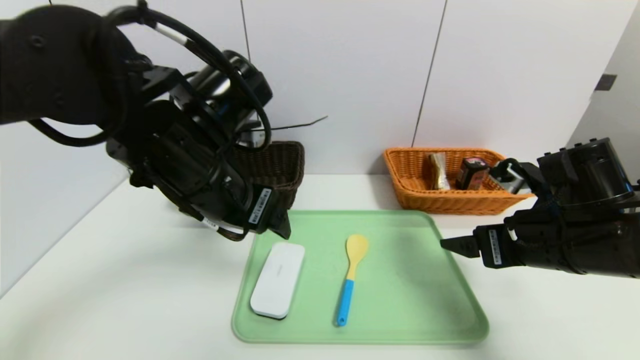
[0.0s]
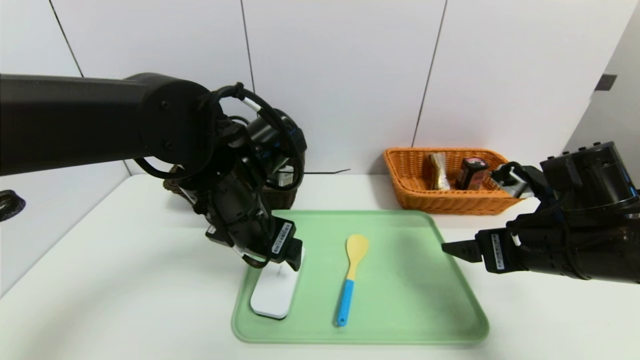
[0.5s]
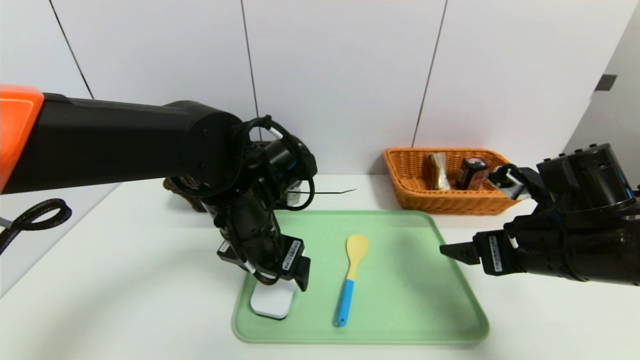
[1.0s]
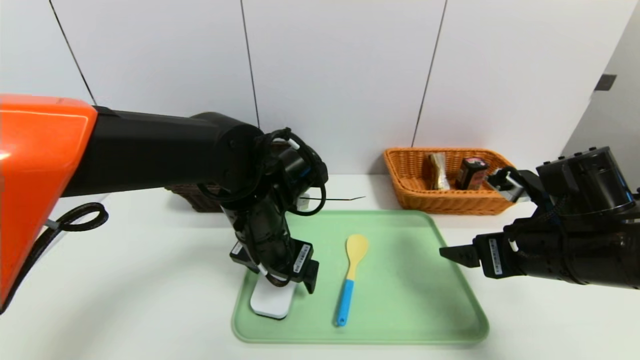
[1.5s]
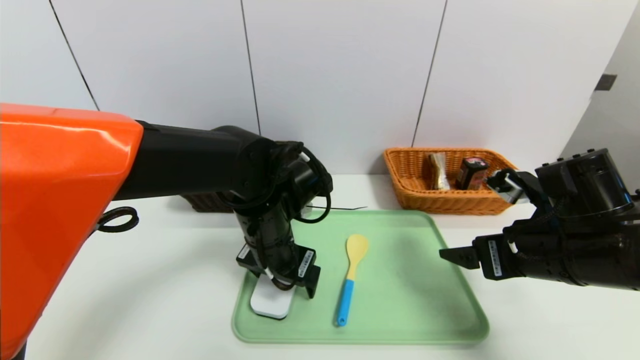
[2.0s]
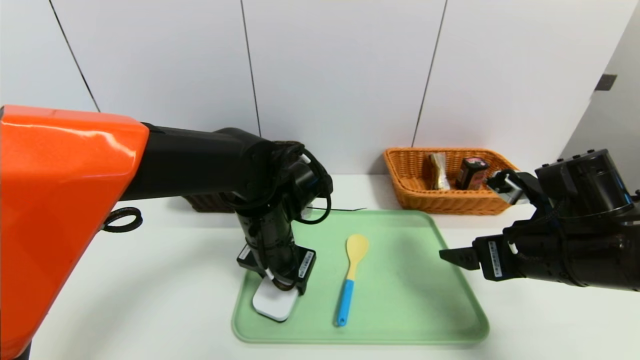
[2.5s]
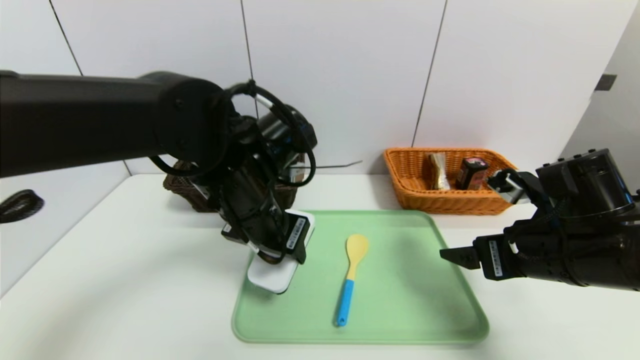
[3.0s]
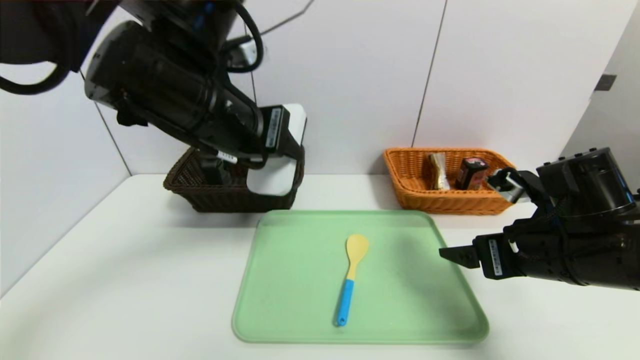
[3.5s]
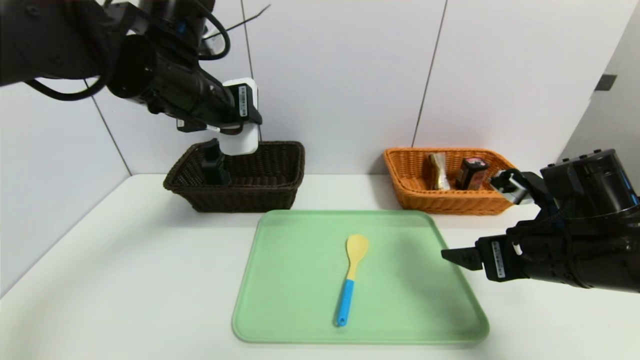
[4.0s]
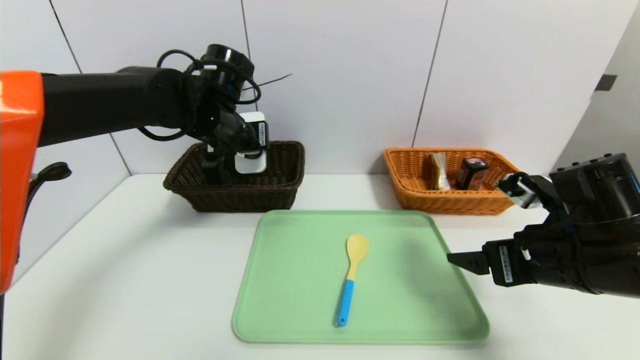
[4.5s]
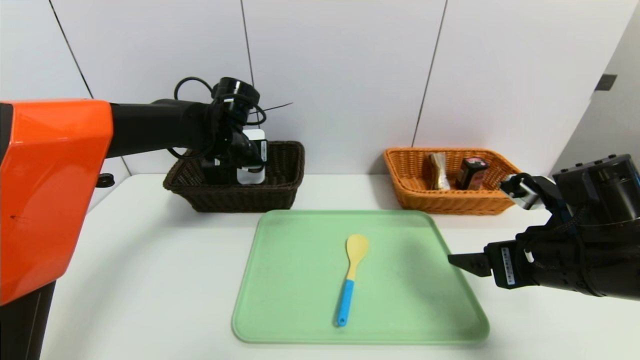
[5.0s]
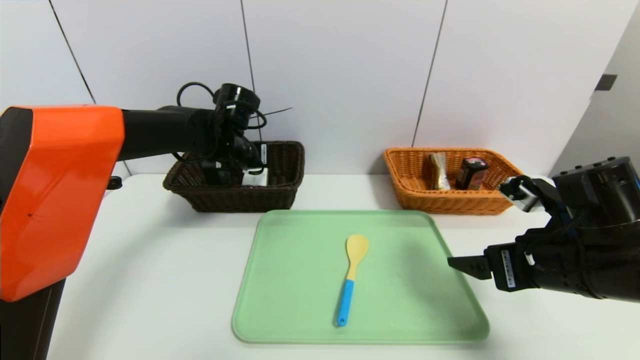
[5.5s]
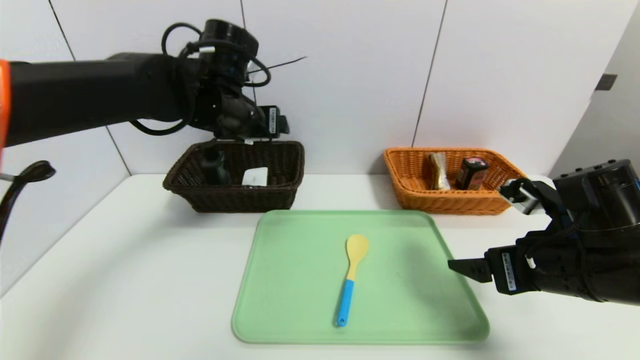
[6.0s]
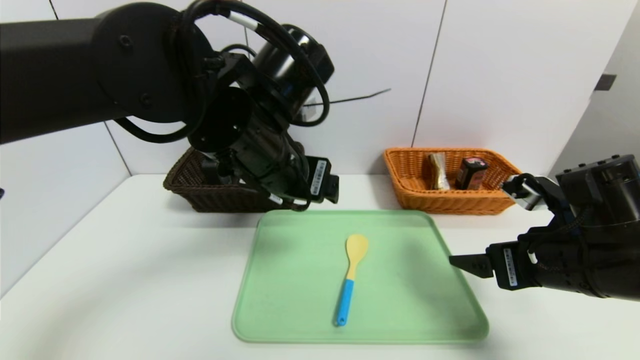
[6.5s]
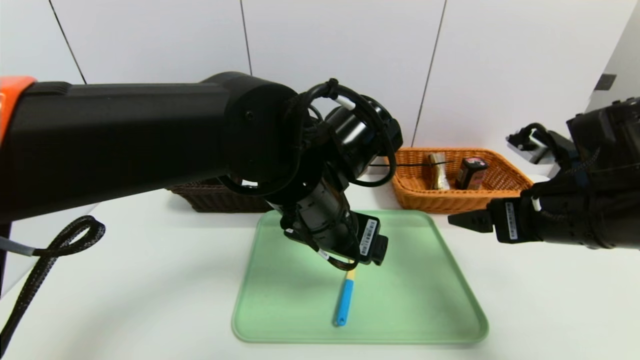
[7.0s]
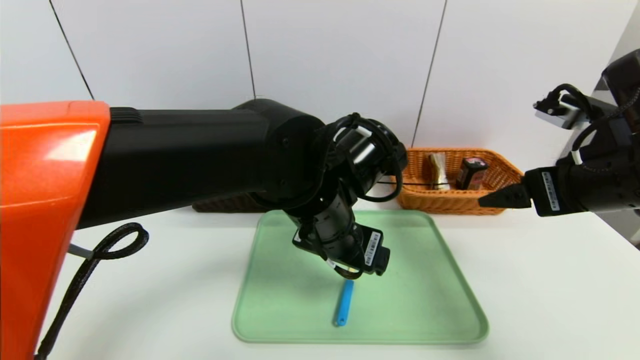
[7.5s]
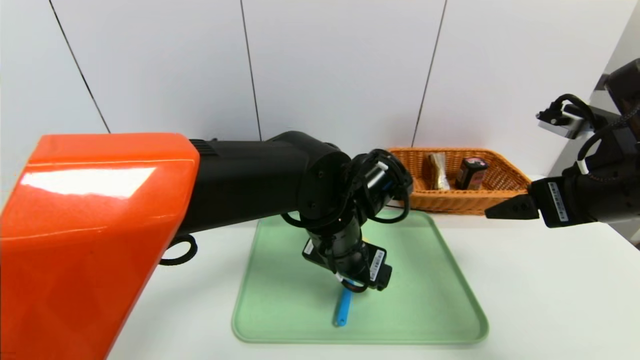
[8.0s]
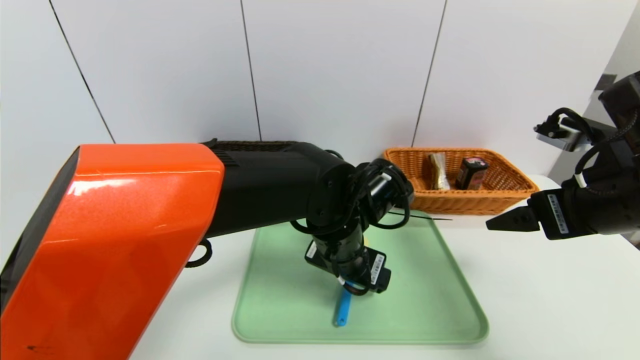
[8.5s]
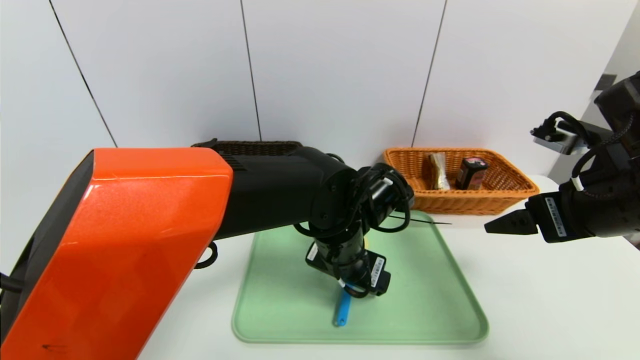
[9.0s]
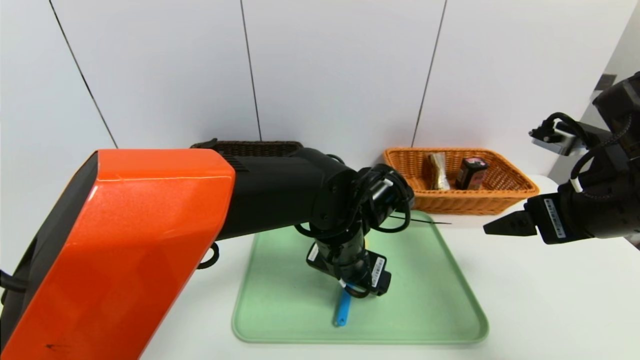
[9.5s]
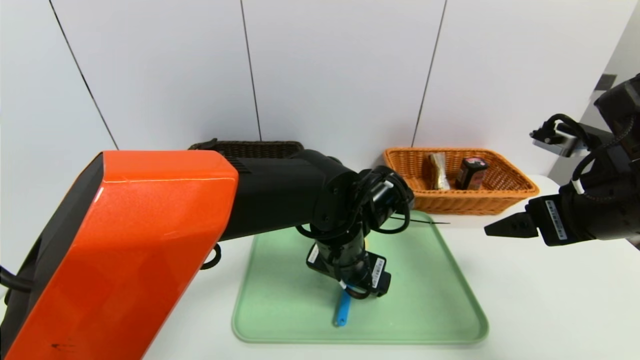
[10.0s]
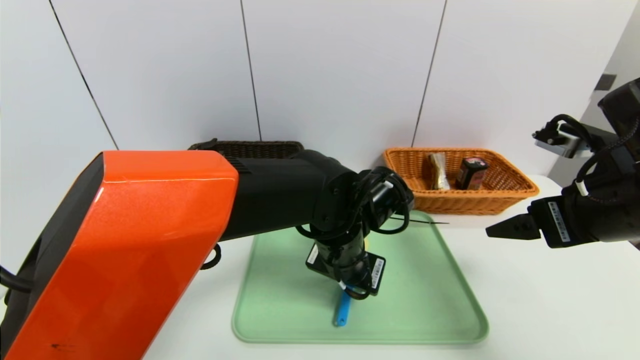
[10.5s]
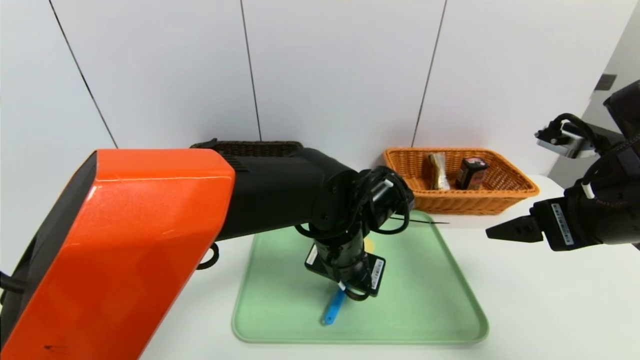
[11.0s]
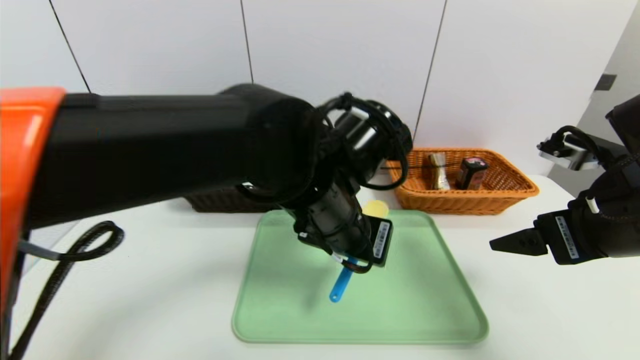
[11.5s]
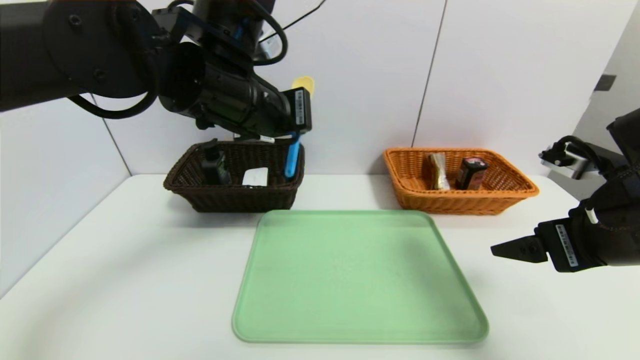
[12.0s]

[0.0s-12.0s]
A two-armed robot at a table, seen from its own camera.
Task of the whole recording: place the food in the right basket with the right gripper, and place the non food items in the left basket with the left gripper.
Step, 0.0s to 5.5s: Grasp the white eraser and put it in the left basket.
0.0s to 2.0s: The left gripper travels downward and to the right by some 10 cm.
2.0s to 4.0s: The left gripper is displaced upward and to the left by some 20 cm.
4.0s to 6.0s: The left gripper goes downward and returns, some 10 cm each way, and opens its fingers.
6.0s to 8.0s: The left gripper goes approximately 20 cm to the right, downward and backward, while the right gripper is displaced upward by some 10 cm.
10.0s to 12.0s: The left gripper goes approximately 20 cm upward and to the left, and closes.

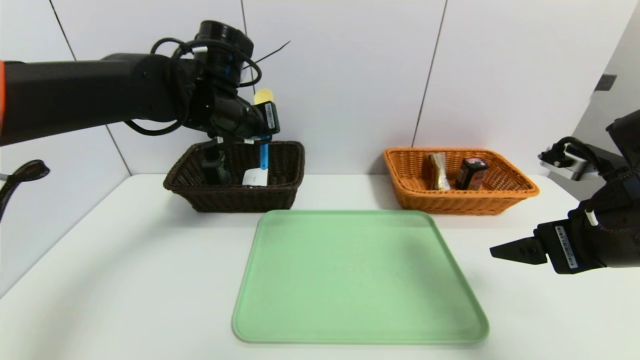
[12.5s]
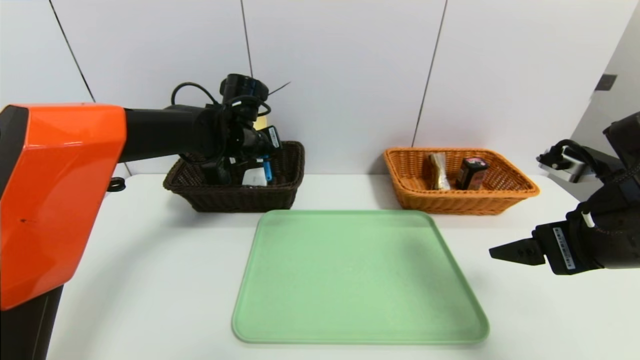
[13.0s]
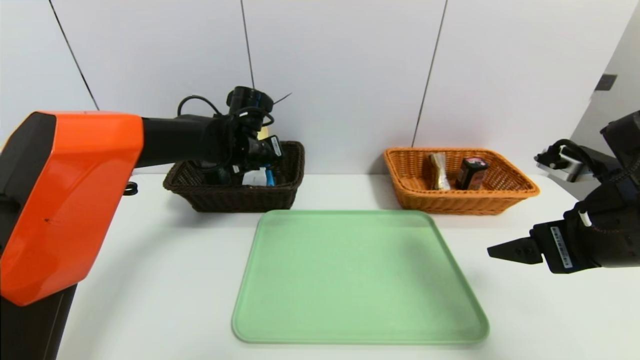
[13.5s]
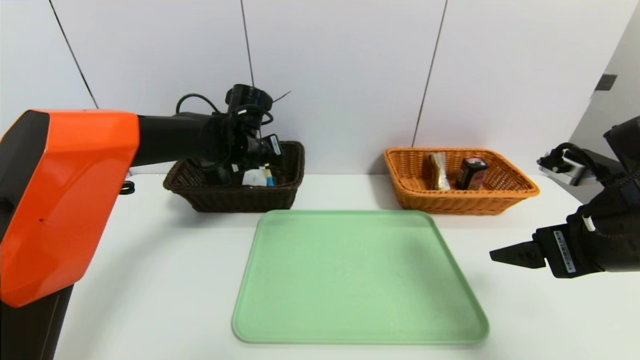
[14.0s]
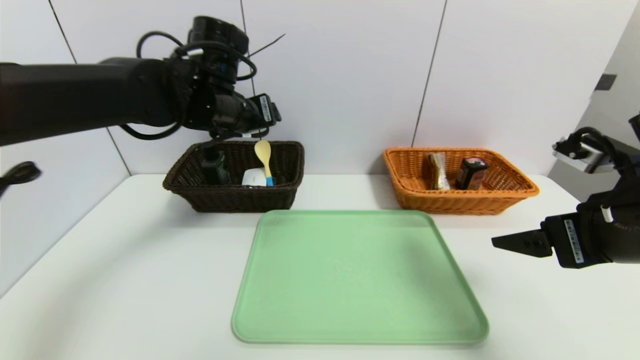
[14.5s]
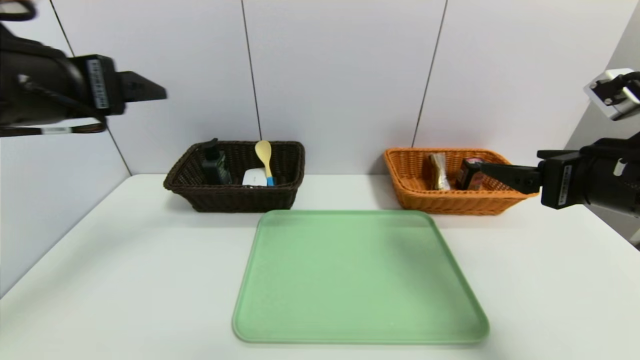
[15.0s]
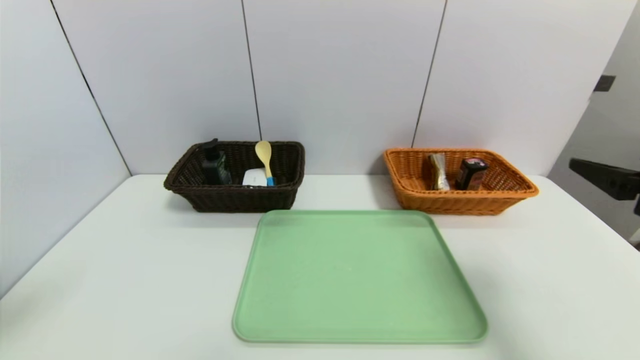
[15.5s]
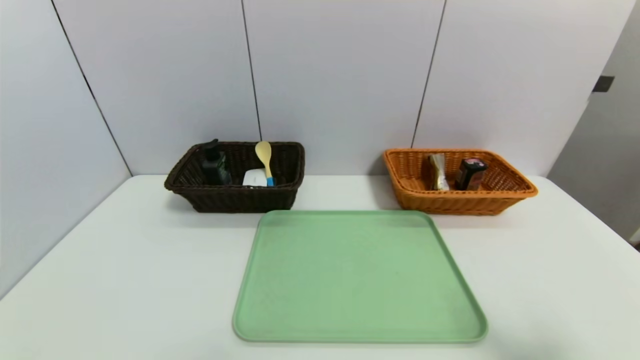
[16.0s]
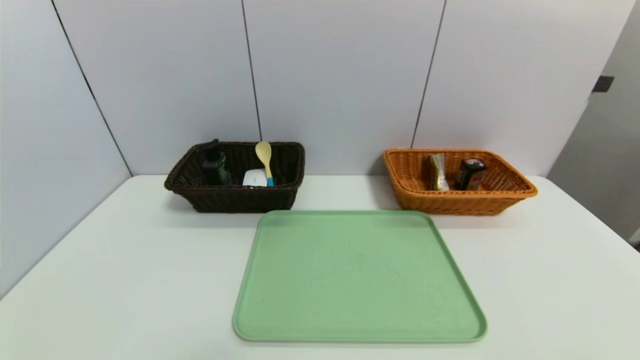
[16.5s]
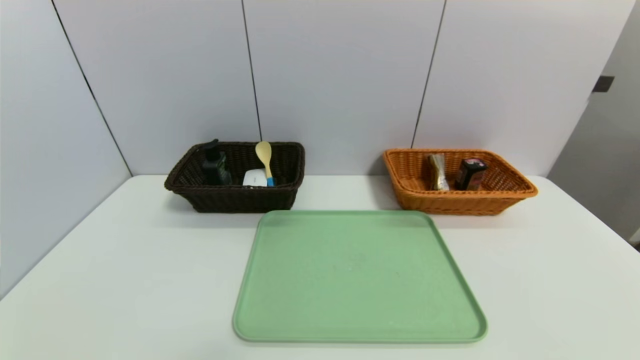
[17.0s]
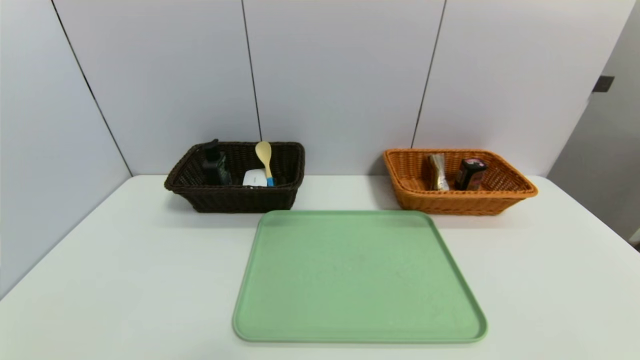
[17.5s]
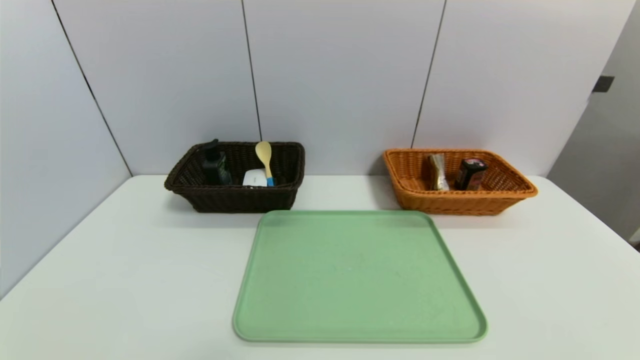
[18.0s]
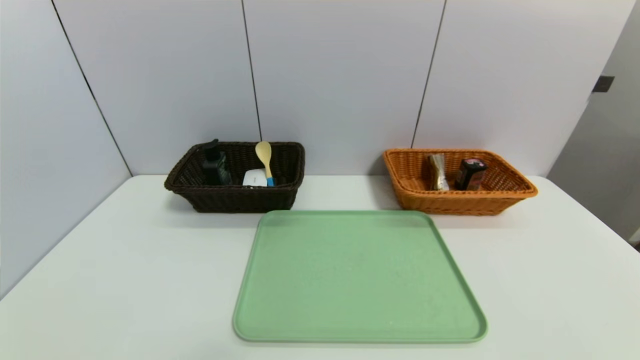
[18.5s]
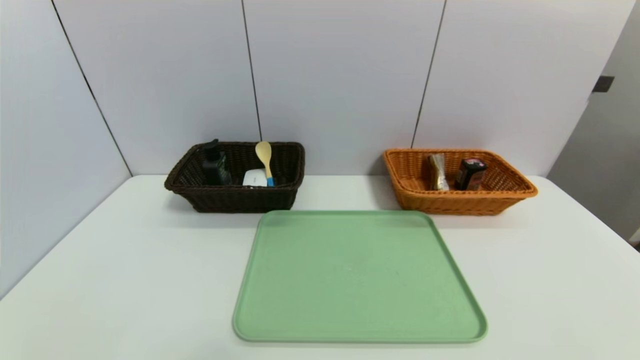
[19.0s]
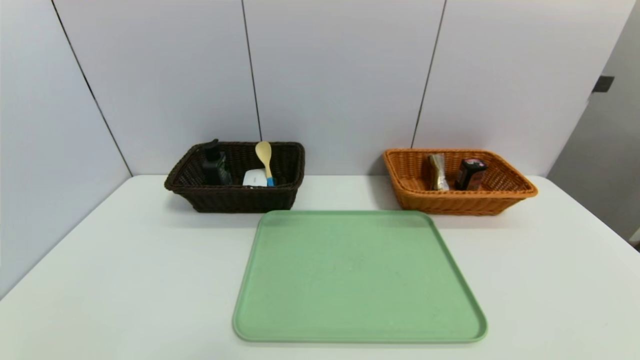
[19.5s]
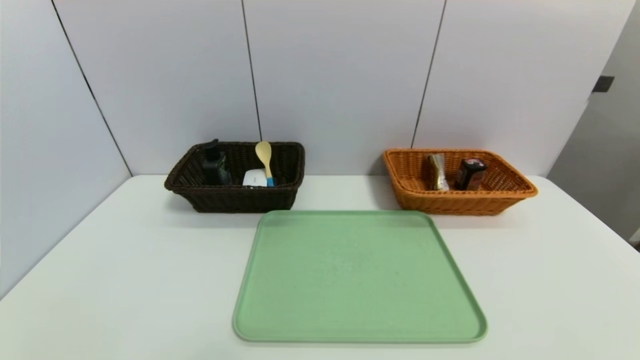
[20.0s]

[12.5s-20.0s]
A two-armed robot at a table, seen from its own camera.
Task of the whole recording: place the food in the right basket with the right gripper, and place the non food items in the left basket with the left gripper.
12.5s to 14.5s: The left gripper moves about 10 cm downward and comes back, and opens up.
14.5s to 16.5s: The left gripper heads backward, covering approximately 40 cm, while the right gripper is displaced backward by roughly 20 cm.
18.0s to 20.0s: Both grippers stay about where they are.
